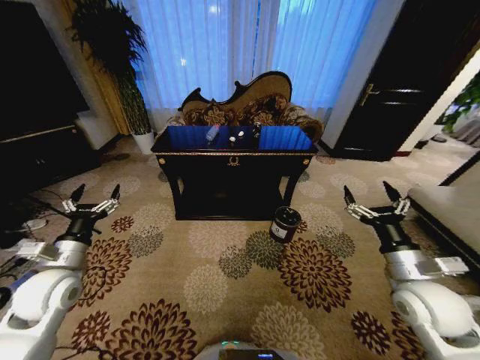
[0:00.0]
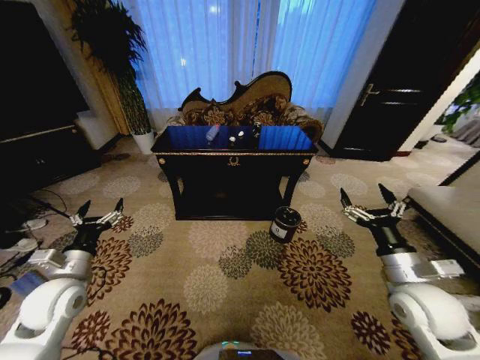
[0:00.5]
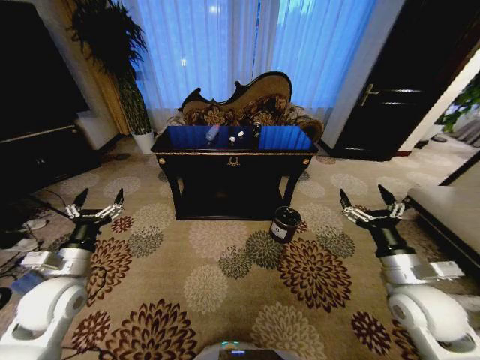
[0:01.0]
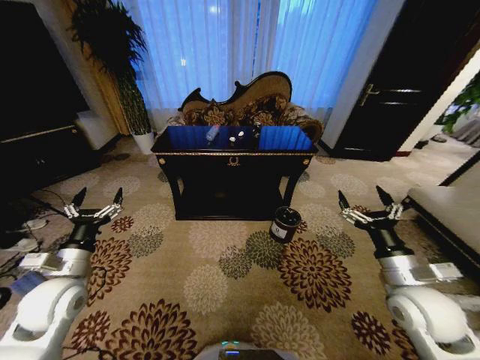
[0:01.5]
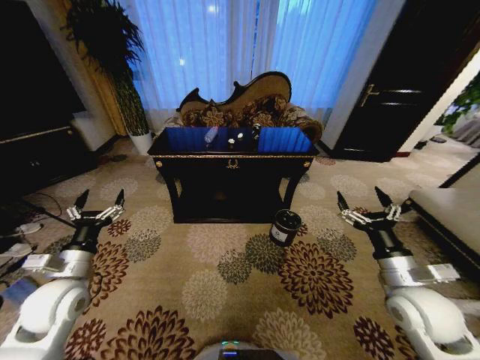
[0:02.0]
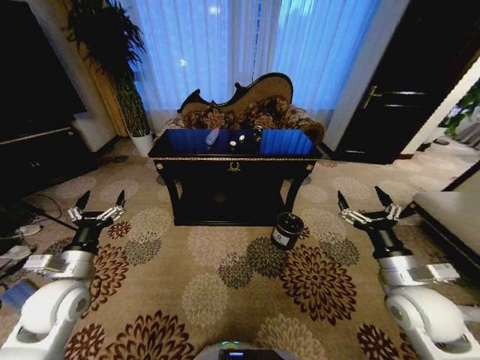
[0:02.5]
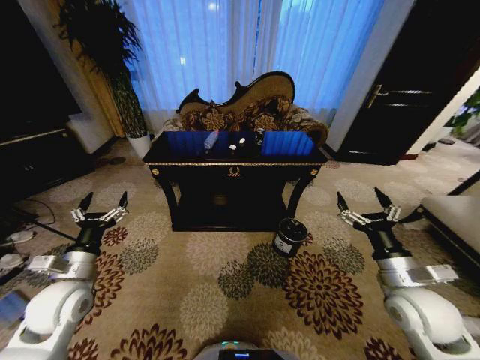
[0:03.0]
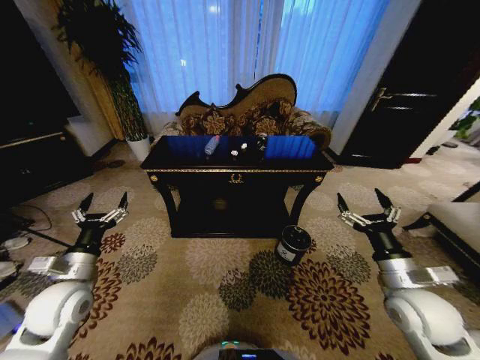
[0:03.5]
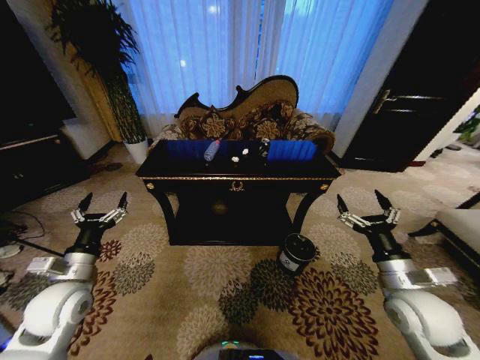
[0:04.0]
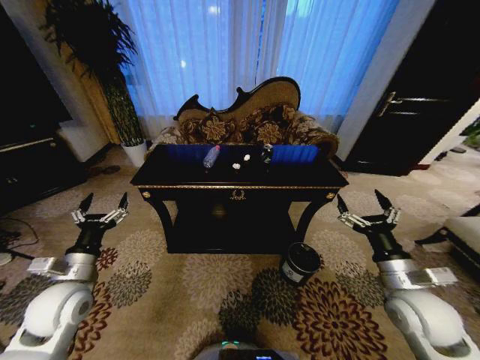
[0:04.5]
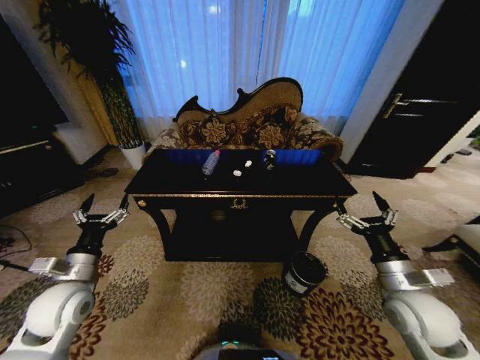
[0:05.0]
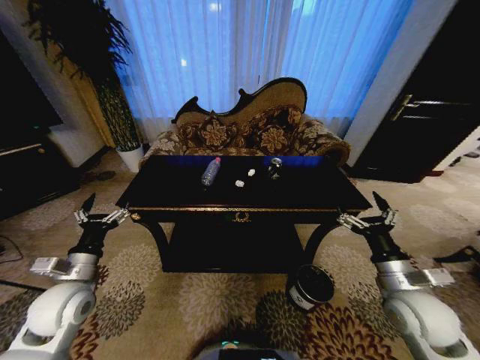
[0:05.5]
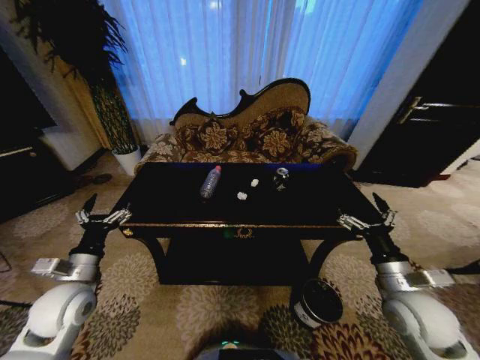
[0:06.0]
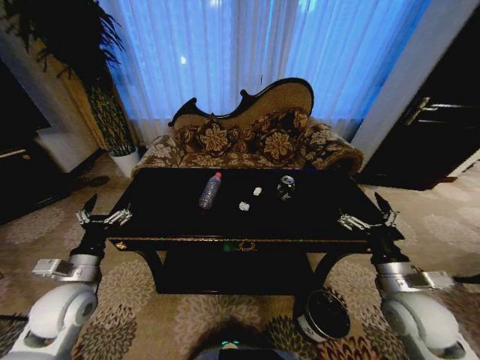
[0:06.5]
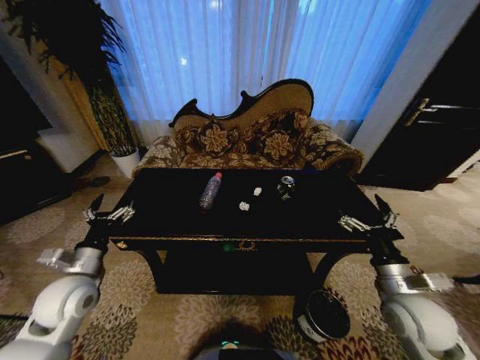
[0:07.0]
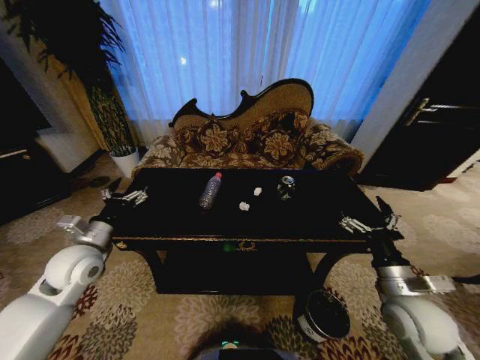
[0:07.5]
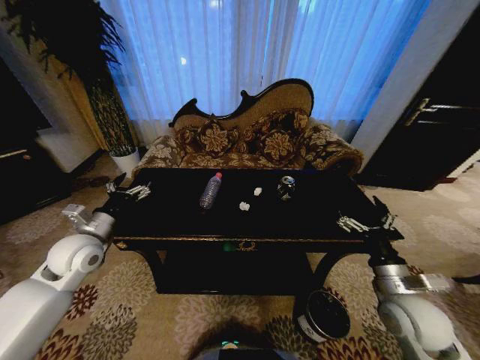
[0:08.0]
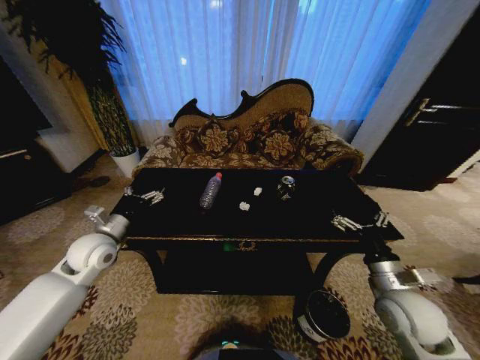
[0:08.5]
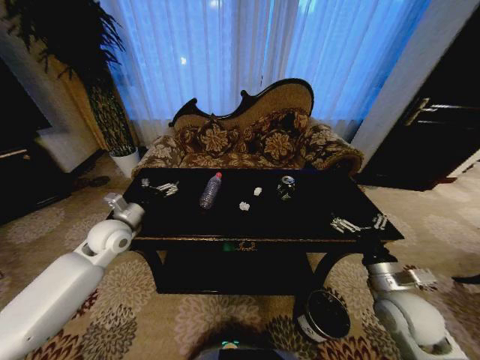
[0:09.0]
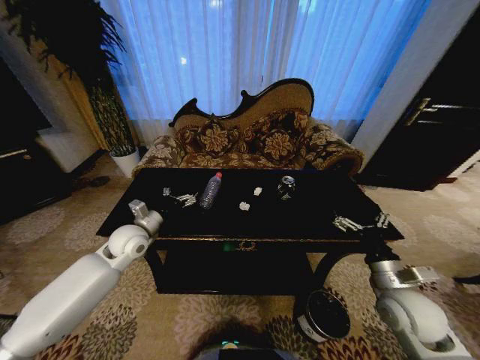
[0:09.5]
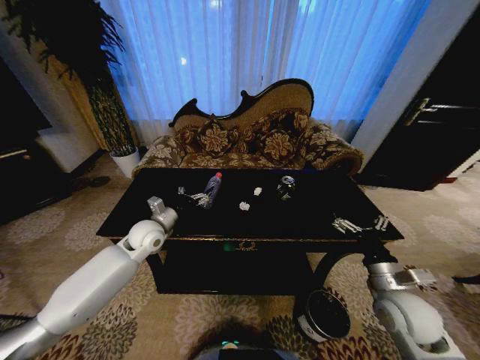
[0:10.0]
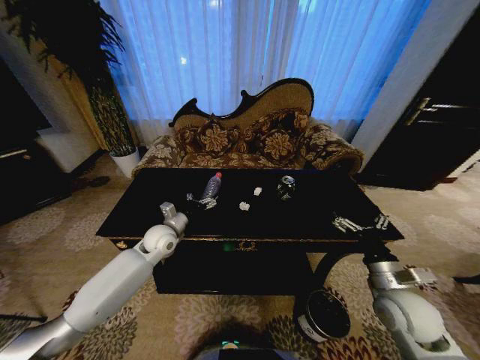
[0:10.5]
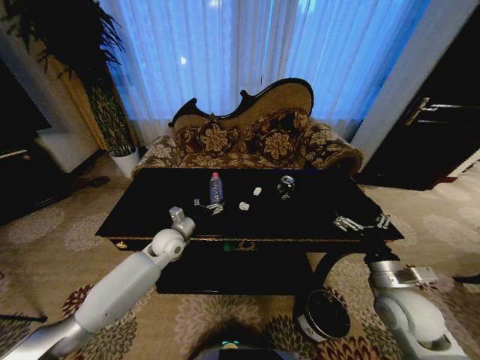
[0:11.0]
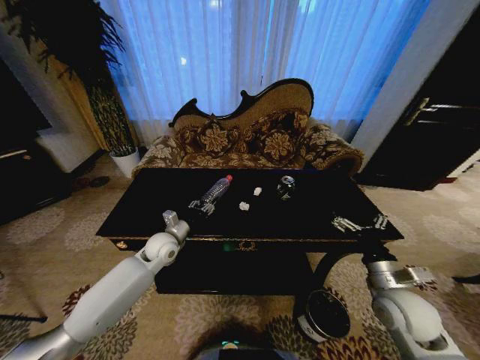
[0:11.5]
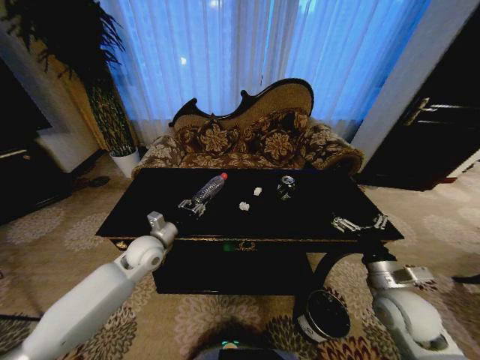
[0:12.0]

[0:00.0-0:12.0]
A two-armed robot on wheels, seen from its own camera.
Task of the whole recording: Move to the front of the table and place the trash on the table into the trash bin.
6.0 to 8.0 s: The left gripper travels forward by some 10 cm.
8.0 to 10.0 s: The left gripper heads to the right, forward and downward, covering about 15 cm.
10.0 to 12.0 s: The left gripper closes its fingers.

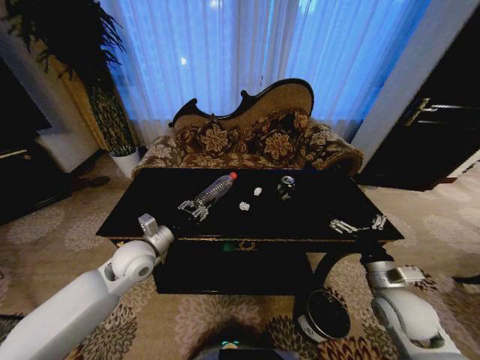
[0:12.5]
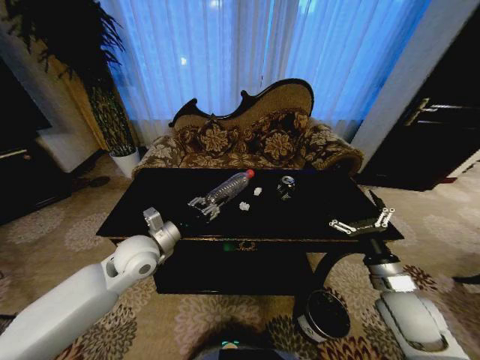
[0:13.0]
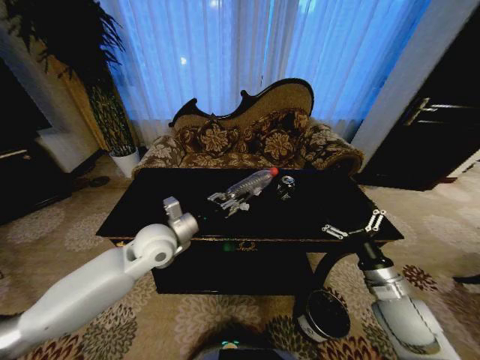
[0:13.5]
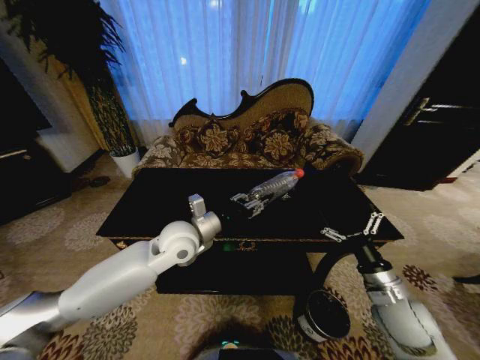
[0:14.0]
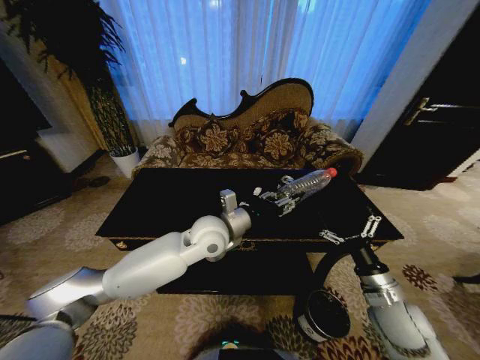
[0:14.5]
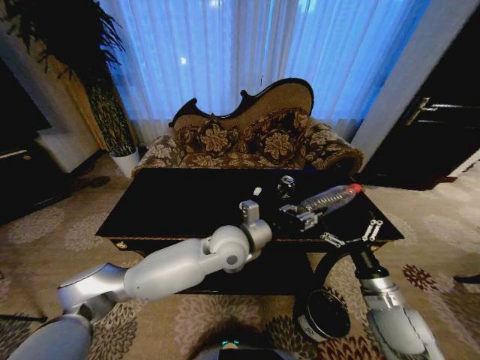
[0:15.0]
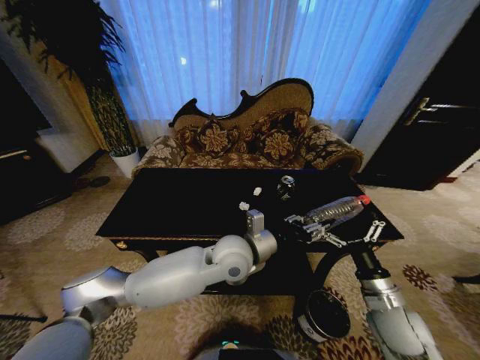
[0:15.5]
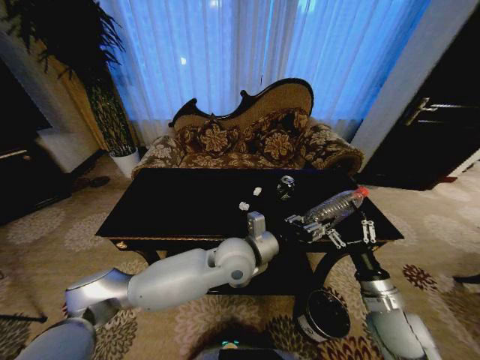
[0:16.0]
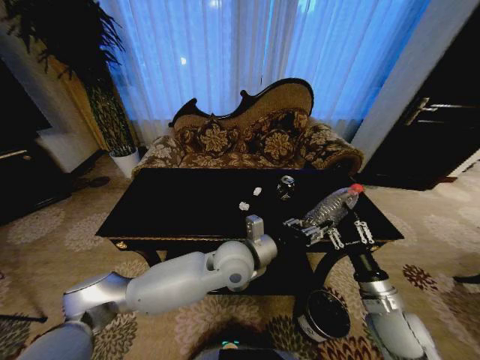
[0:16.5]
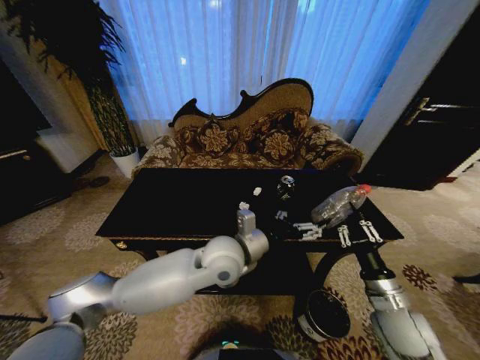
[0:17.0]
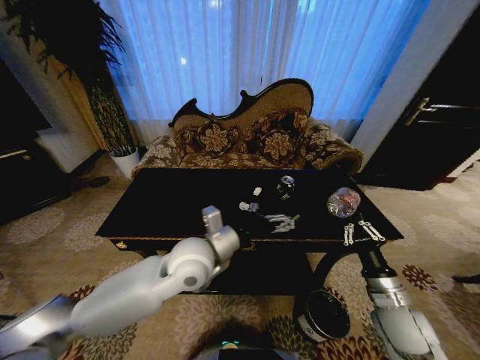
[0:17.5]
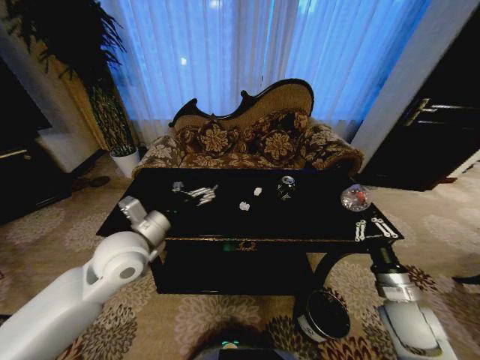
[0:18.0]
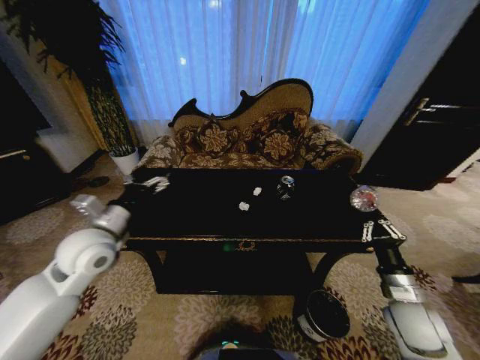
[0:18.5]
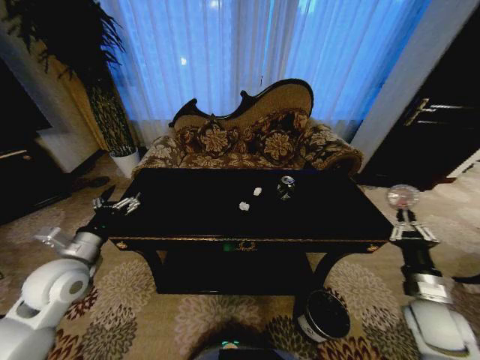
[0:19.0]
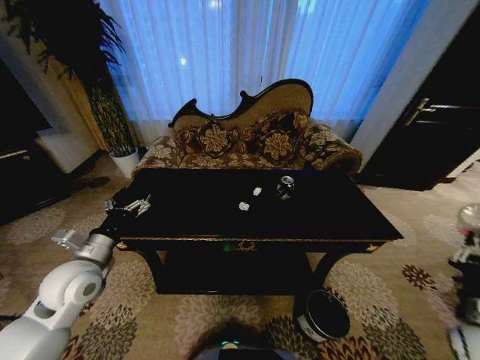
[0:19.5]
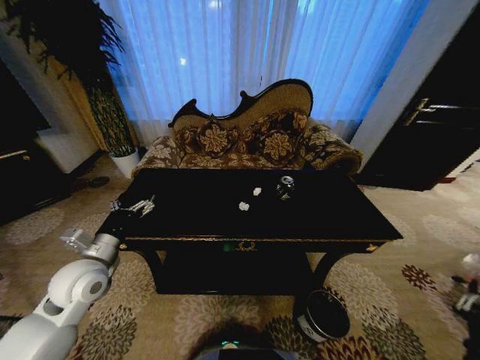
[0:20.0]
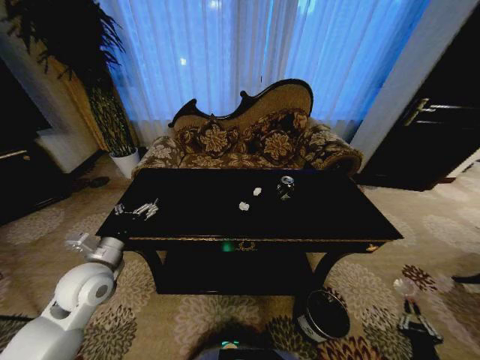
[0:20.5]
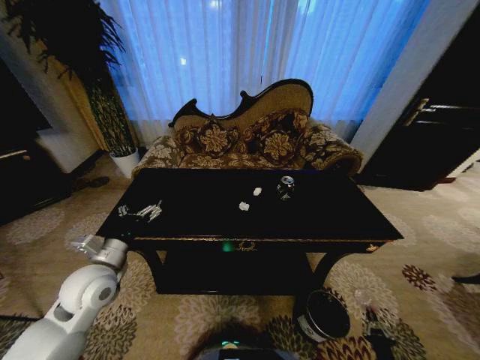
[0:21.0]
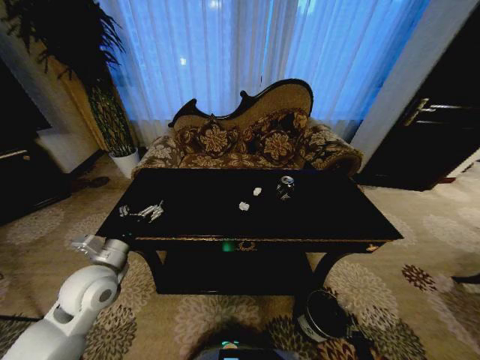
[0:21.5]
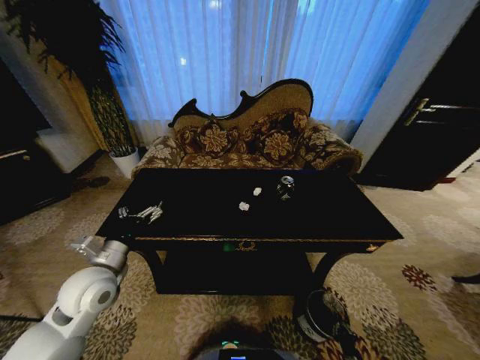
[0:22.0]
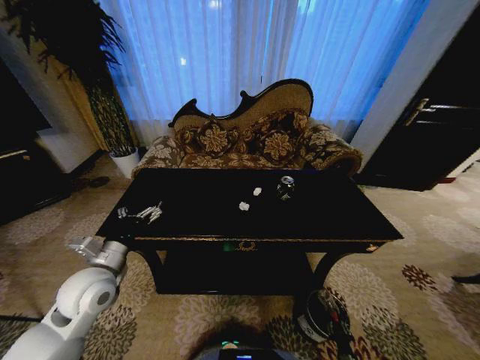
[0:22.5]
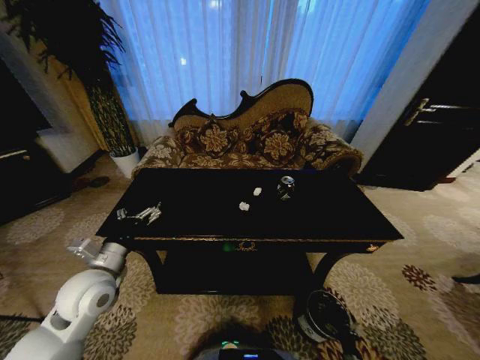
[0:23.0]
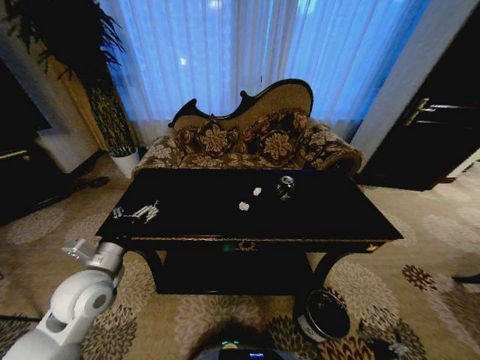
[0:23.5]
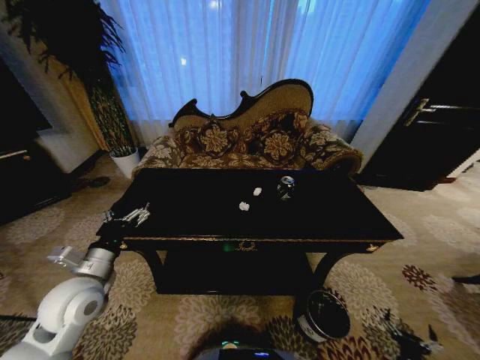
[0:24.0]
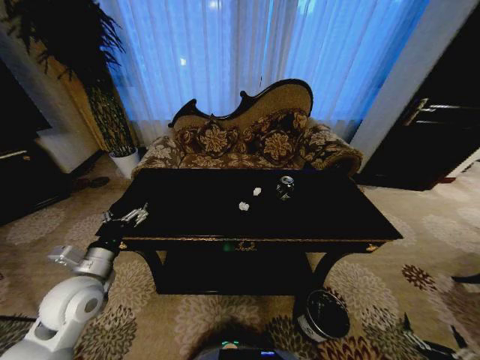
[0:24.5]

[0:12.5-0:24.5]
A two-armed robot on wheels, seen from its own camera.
Task of the whole recording: Move to the front of the table and place the trash on the table into the trash bin.
12.5 to 14.5 s: The left gripper is displaced to the right by approximately 20 cm.
14.5 to 16.5 s: The left gripper moves to the right and backward, about 10 cm. The right gripper closes.
16.5 to 18.5 s: The left gripper heads to the left, covering some 30 cm, and opens up. Meanwhile the right gripper heads to the right, covering about 5 cm, and closes up.
18.5 to 20.5 s: The right gripper shifts roughly 30 cm downward, backward and to the right. Meanwhile the left gripper heads downward, covering approximately 5 cm.
20.5 to 22.5 s: The right gripper goes about 20 cm downward and to the left.
22.5 to 24.5 s: The right gripper is displaced upward, to the right and backward by about 20 cm, and opens its fingers.

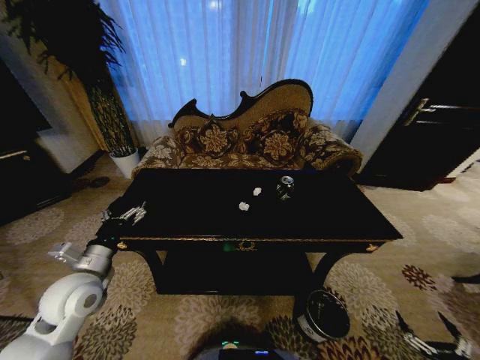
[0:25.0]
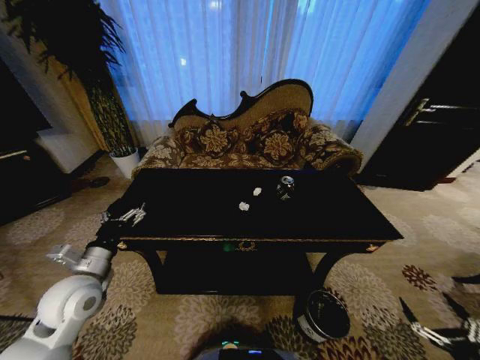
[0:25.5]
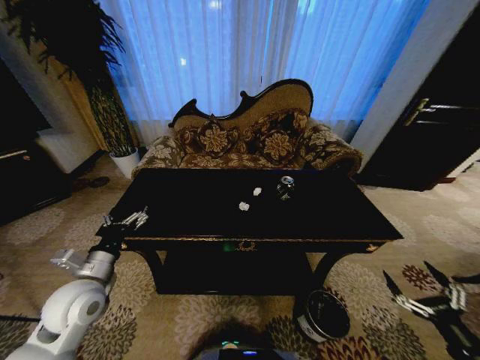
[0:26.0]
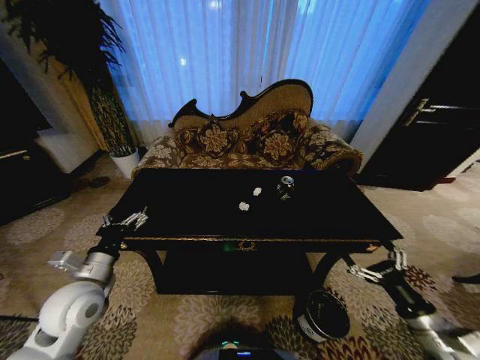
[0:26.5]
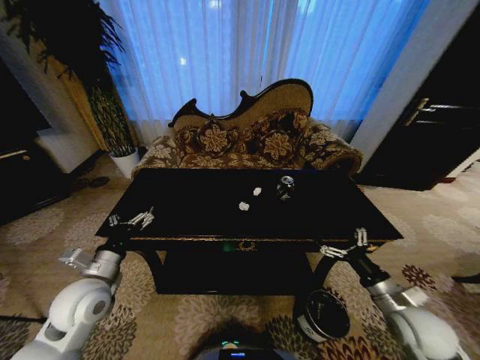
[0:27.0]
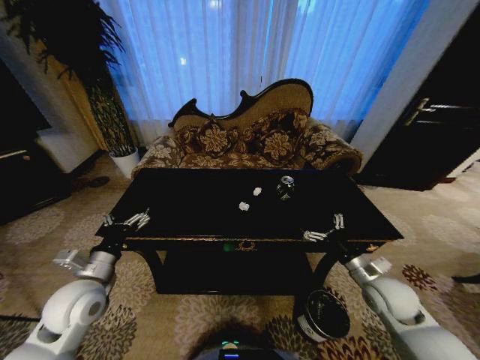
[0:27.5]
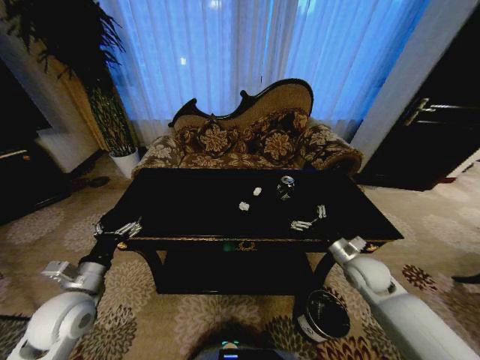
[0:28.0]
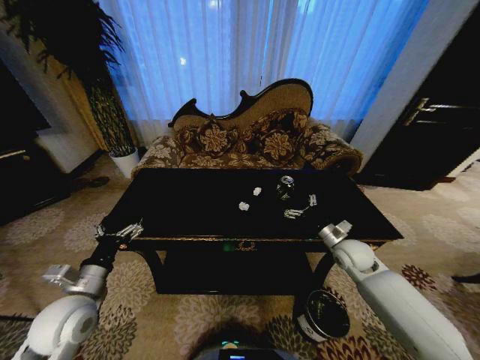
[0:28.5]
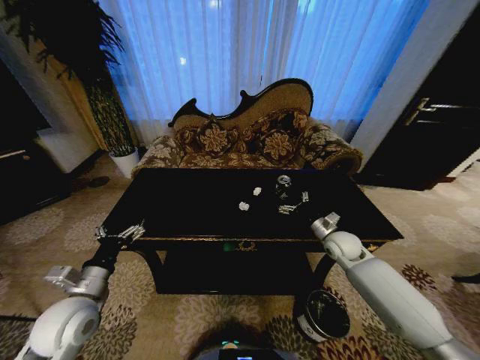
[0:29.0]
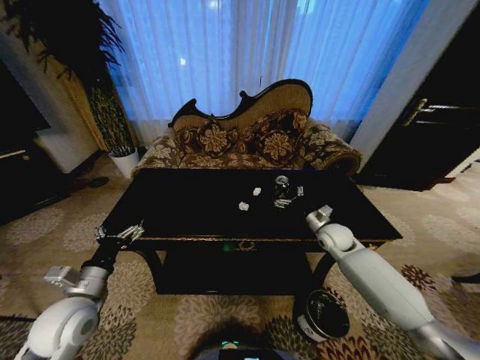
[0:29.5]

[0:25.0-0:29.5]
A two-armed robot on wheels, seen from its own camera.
Task of the whole recording: Move to the front of the table and place the trash on the table into the trash bin.
25.0 to 27.0 s: The right gripper goes approximately 30 cm forward, to the left and upward.
27.0 to 29.5 s: The right gripper goes some 25 cm forward.
